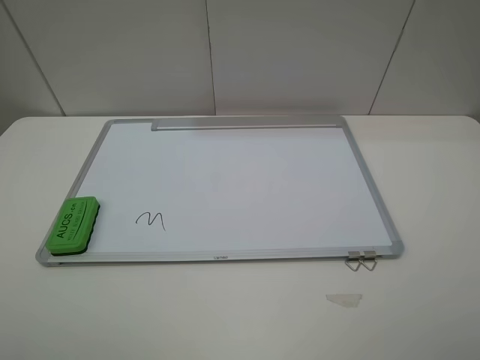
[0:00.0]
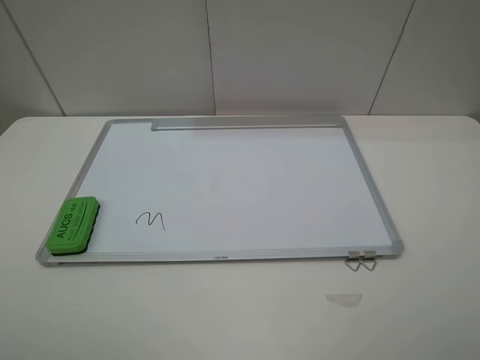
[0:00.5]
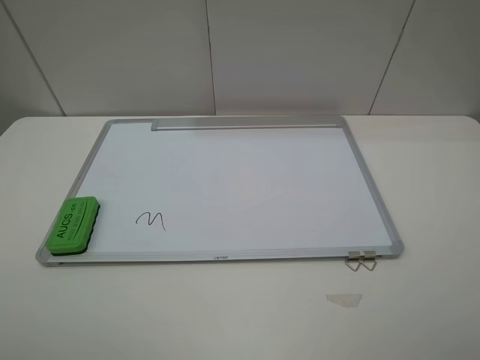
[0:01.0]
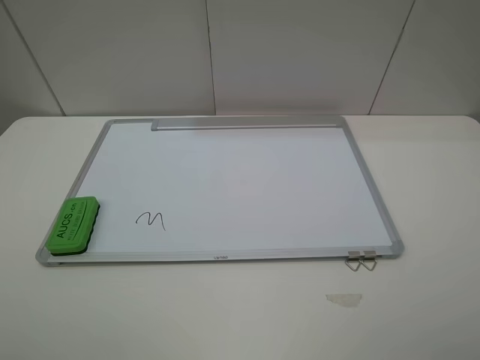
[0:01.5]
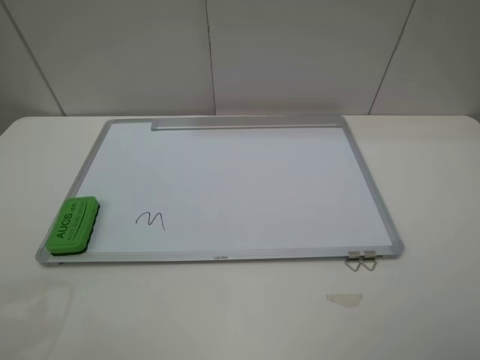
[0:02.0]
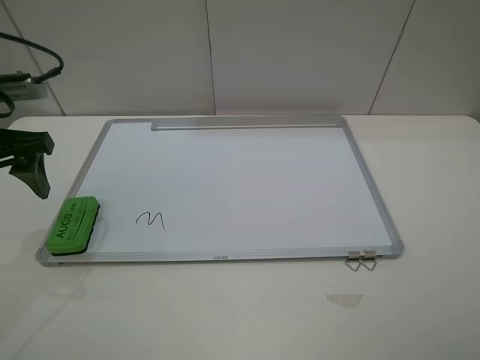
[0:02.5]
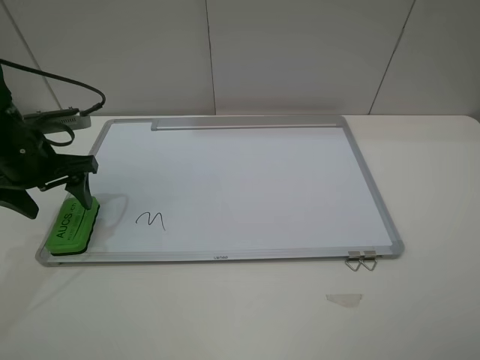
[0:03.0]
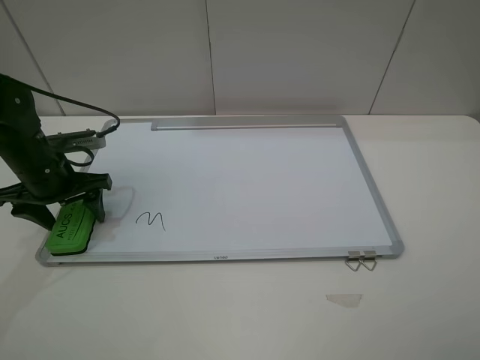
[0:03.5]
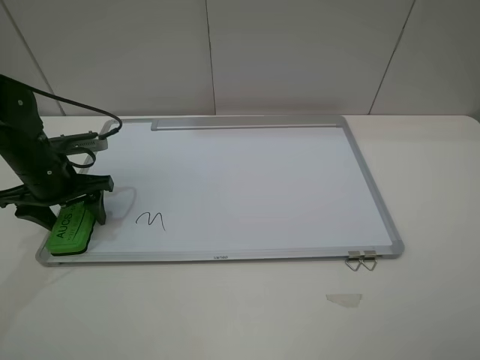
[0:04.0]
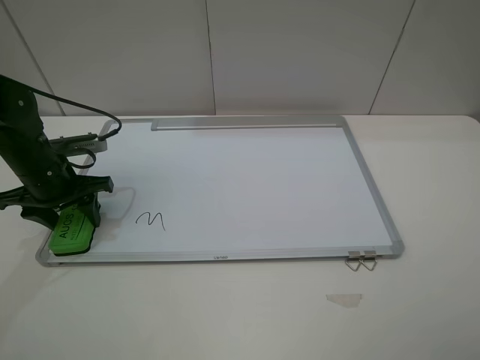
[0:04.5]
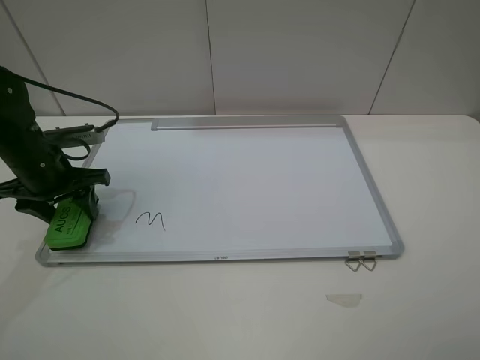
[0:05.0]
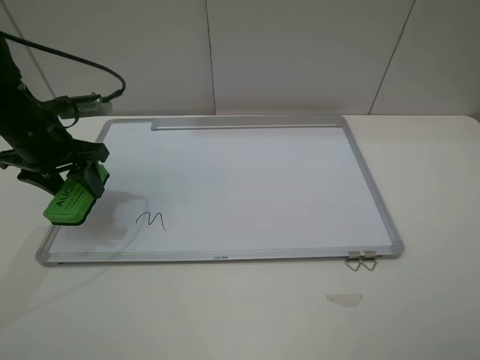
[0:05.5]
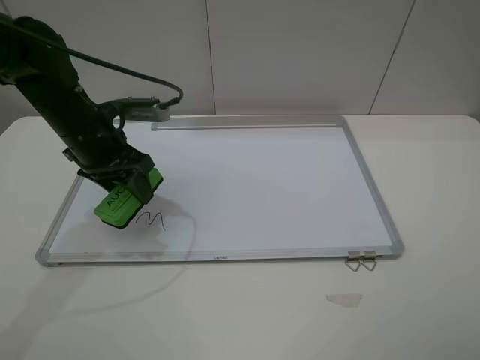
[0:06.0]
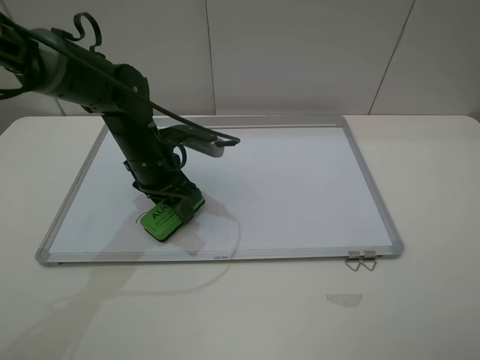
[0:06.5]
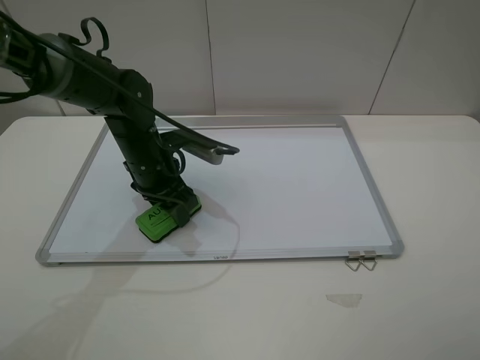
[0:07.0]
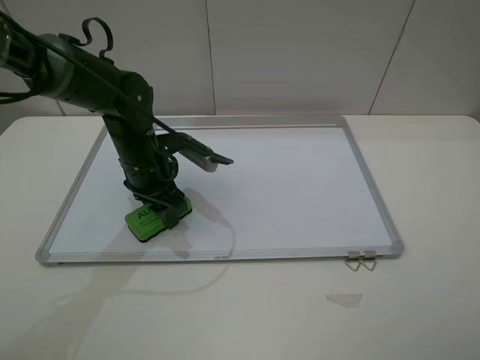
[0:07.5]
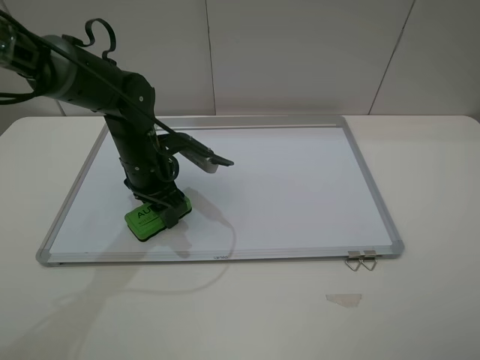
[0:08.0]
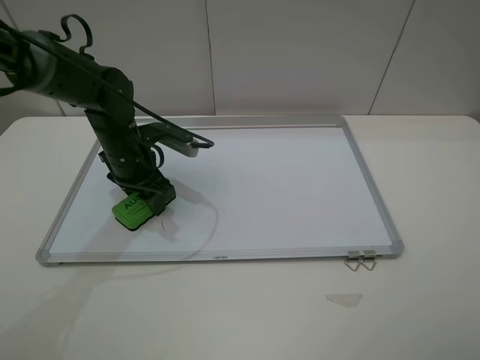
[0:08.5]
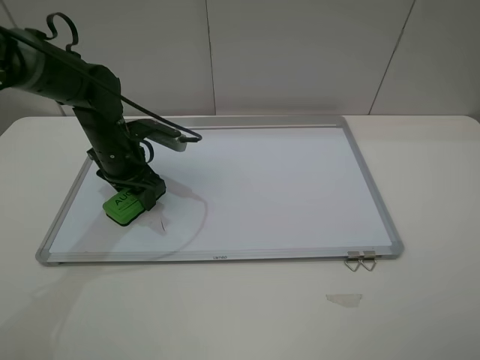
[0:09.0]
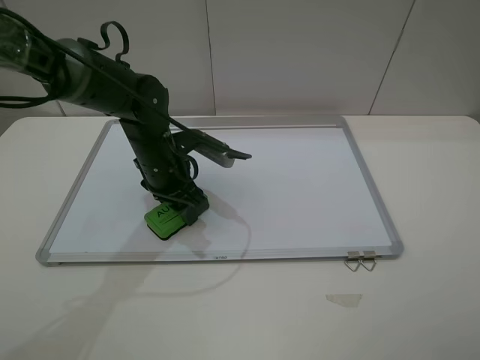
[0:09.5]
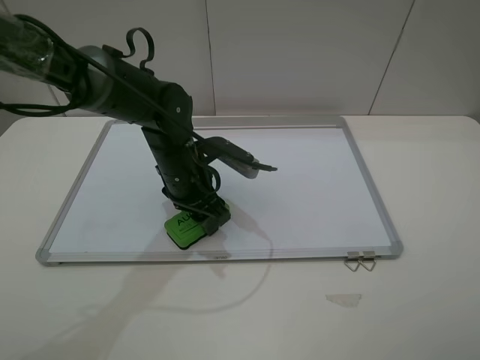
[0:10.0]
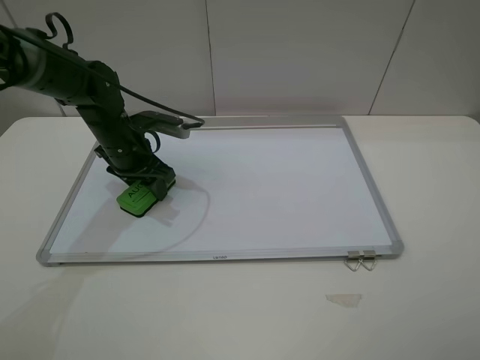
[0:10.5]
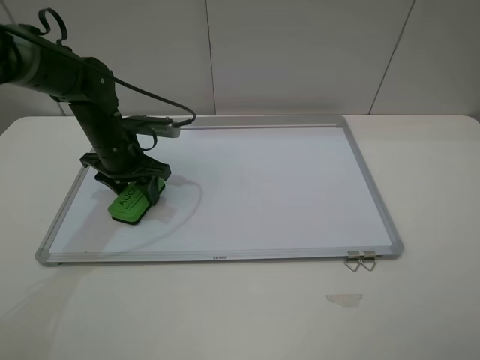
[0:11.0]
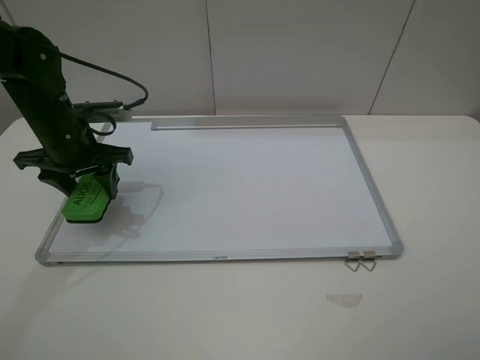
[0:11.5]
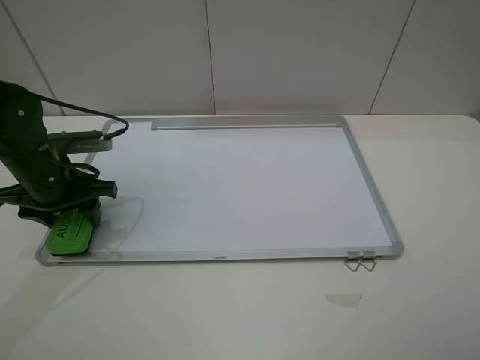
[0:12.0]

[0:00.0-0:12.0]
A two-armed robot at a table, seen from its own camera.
Step, 0:00.0 to 0:04.0: Grasp the eraser with the left gripper.
Step, 0:04.5 to 0:11.0: Grasp the eraser and wipe the blackboard with the left gripper.
0:02.0 to 0:04.0: The left gripper heads downward and forward, covering roughly 25 cm.
0:04.0 to 0:06.0: The left gripper heads to the right and upward, covering some 10 cm, and closes its fingers.
0:06.0 to 0:08.0: The left gripper moves downward and to the right, about 10 cm.
0:08.0 to 0:10.0: The left gripper travels to the right by some 5 cm.
0:10.0 to 0:12.0: The left gripper goes roughly 20 cm to the left.

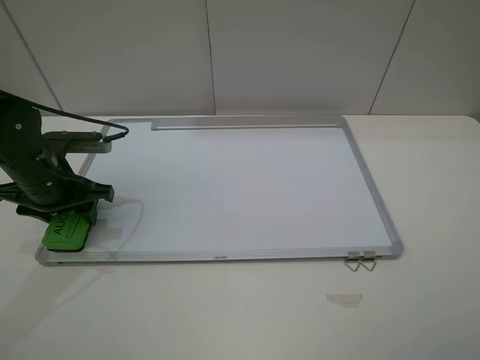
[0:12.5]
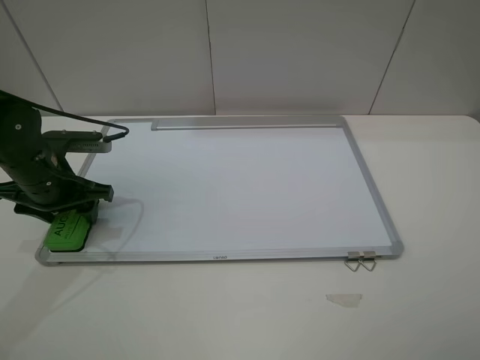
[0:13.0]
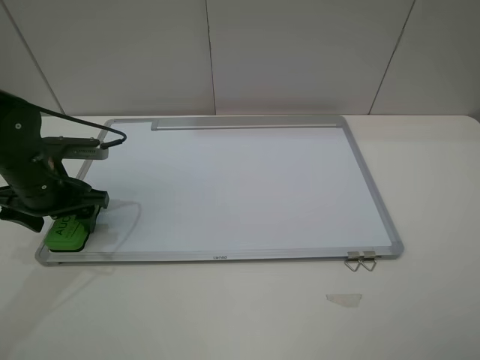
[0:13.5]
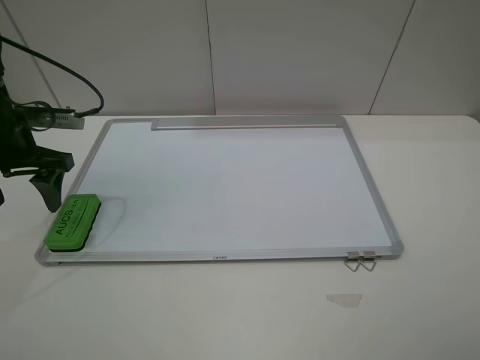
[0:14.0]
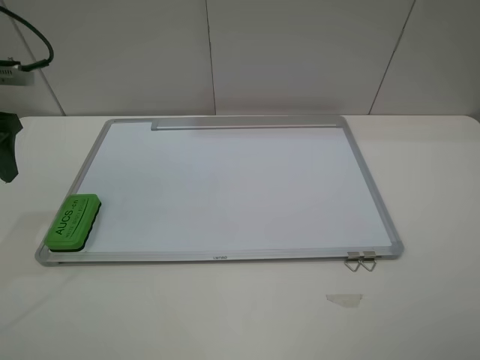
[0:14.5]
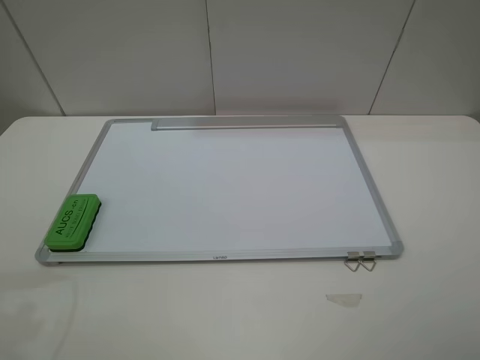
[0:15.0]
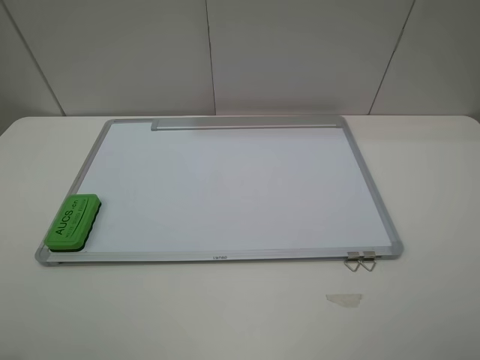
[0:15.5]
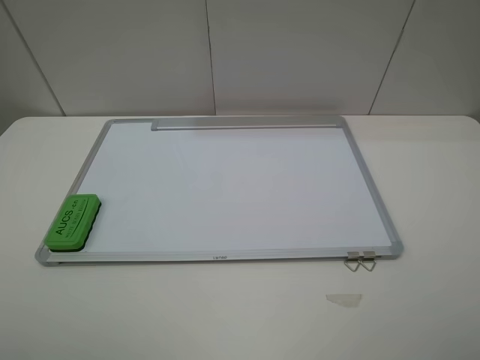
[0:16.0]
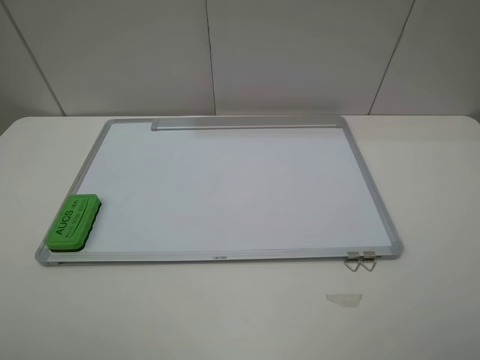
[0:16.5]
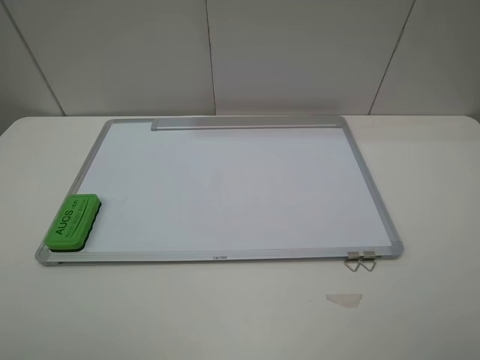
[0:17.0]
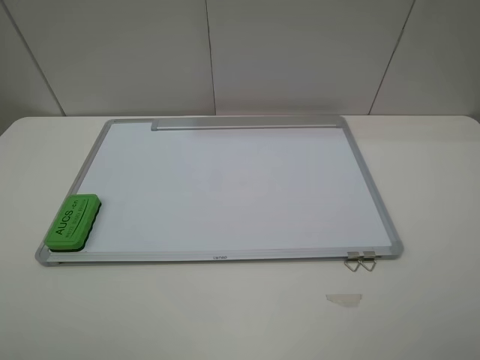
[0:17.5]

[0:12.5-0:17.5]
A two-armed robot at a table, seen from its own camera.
0:12.5 to 0:15.0: The left gripper shifts roughly 20 cm upward and backward, and opens its fingers.
